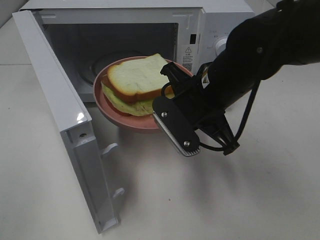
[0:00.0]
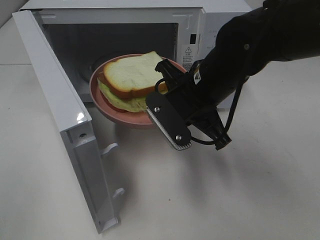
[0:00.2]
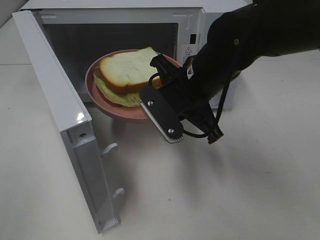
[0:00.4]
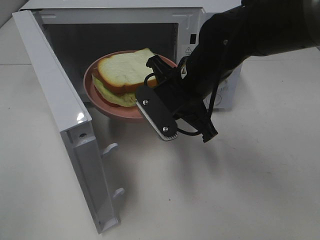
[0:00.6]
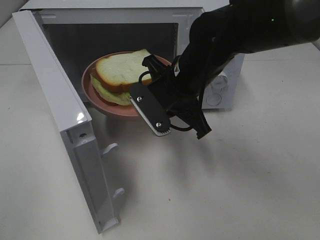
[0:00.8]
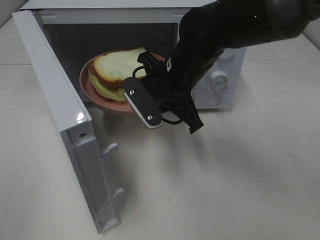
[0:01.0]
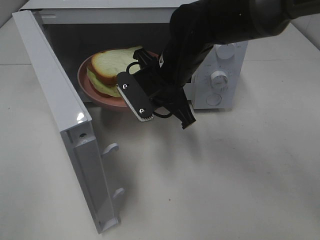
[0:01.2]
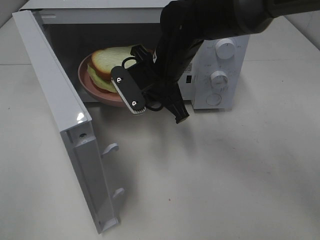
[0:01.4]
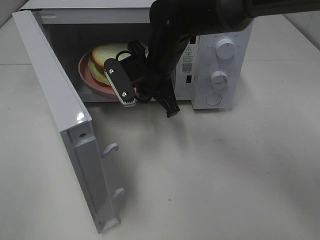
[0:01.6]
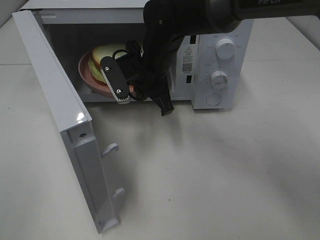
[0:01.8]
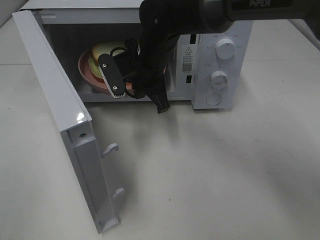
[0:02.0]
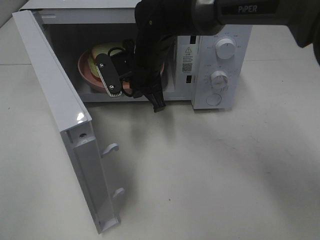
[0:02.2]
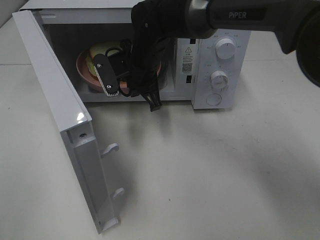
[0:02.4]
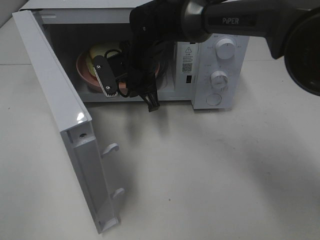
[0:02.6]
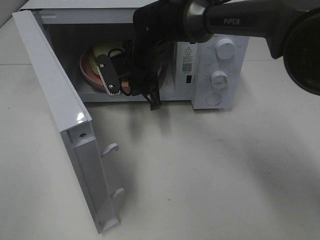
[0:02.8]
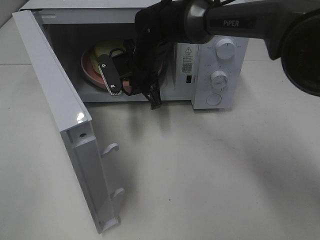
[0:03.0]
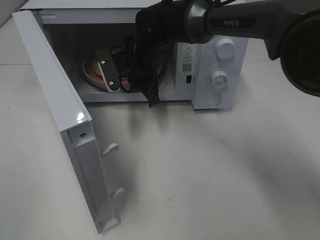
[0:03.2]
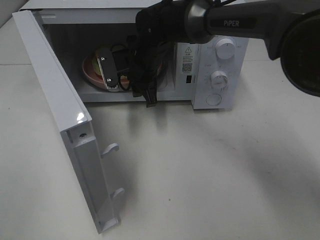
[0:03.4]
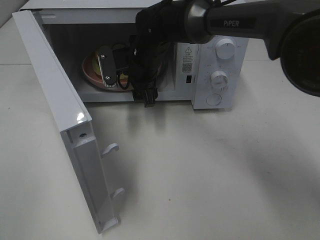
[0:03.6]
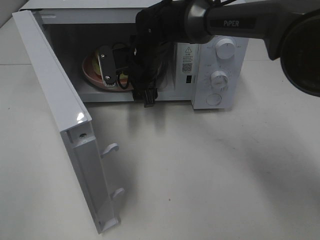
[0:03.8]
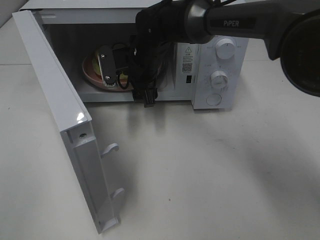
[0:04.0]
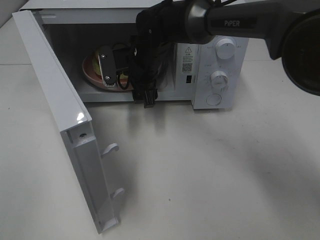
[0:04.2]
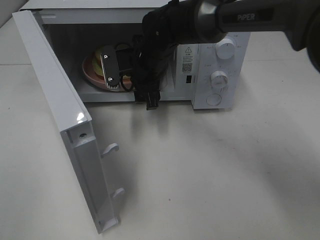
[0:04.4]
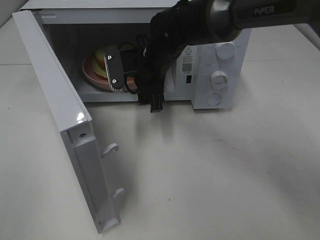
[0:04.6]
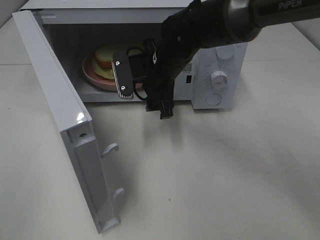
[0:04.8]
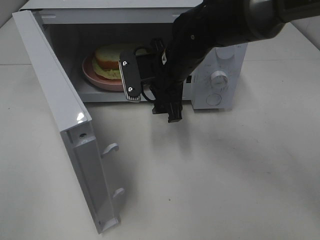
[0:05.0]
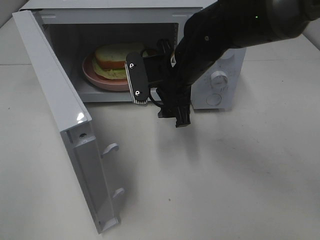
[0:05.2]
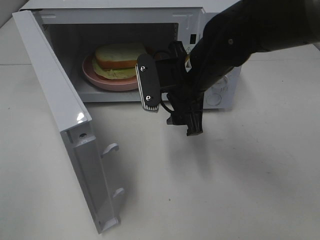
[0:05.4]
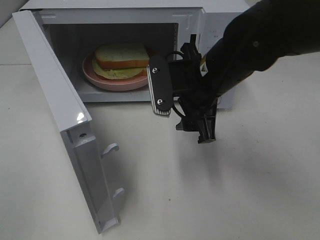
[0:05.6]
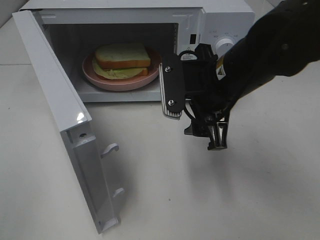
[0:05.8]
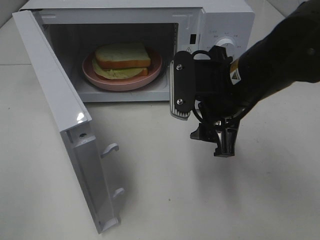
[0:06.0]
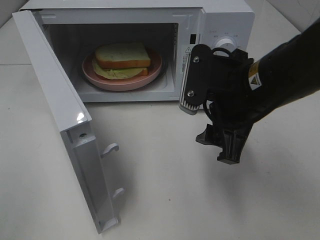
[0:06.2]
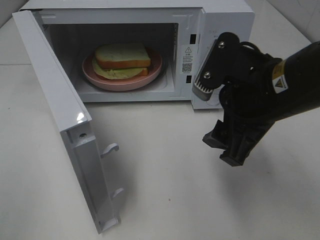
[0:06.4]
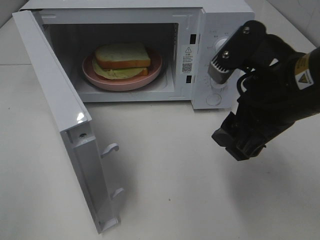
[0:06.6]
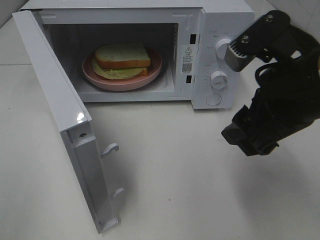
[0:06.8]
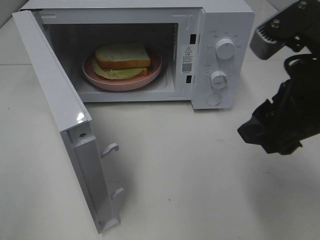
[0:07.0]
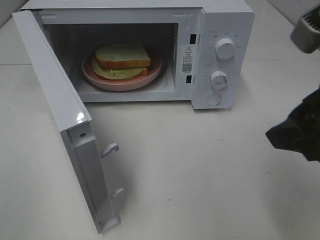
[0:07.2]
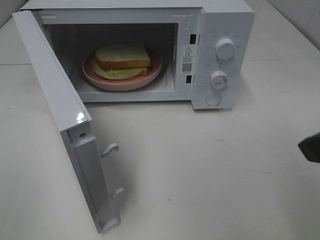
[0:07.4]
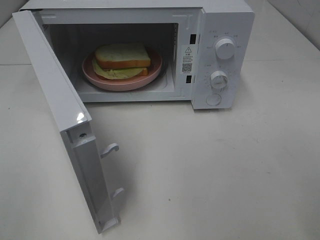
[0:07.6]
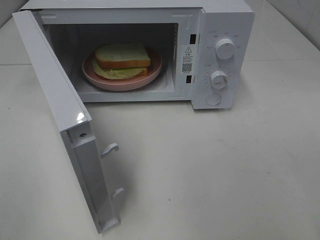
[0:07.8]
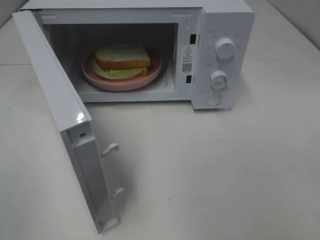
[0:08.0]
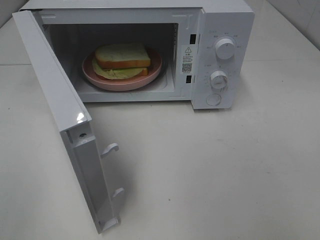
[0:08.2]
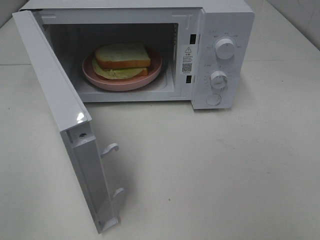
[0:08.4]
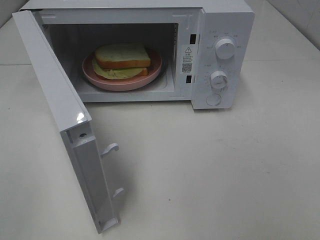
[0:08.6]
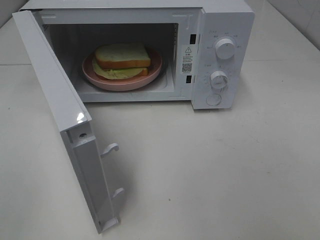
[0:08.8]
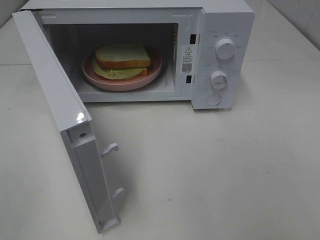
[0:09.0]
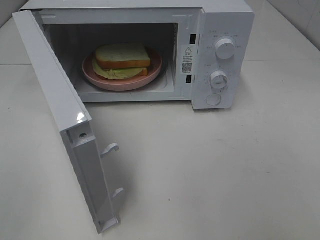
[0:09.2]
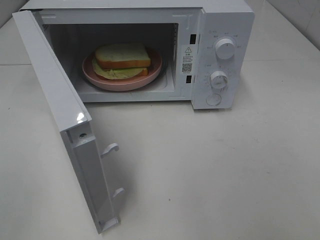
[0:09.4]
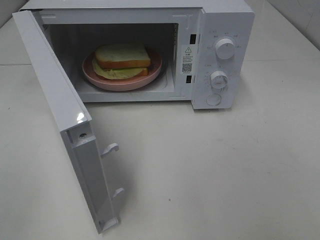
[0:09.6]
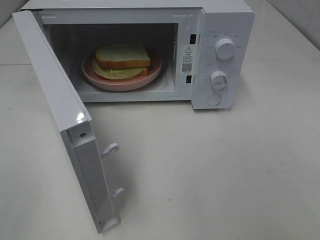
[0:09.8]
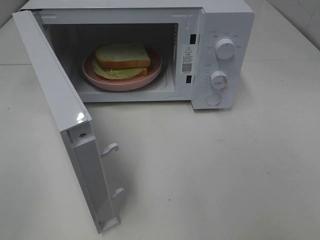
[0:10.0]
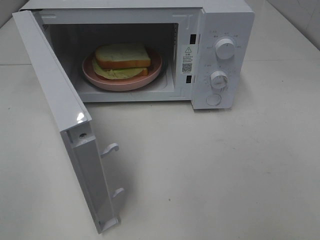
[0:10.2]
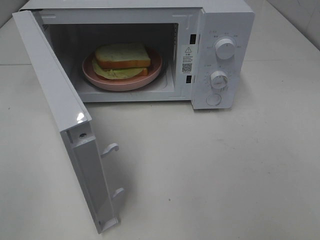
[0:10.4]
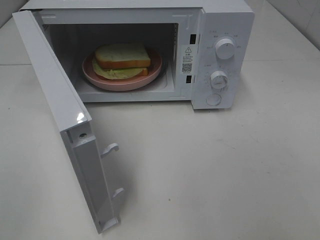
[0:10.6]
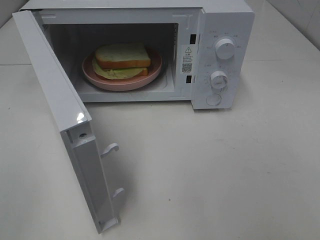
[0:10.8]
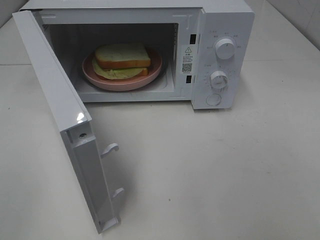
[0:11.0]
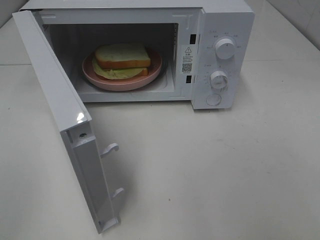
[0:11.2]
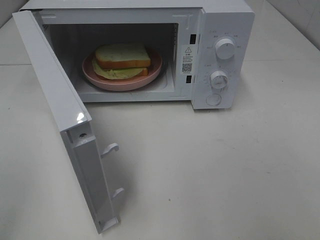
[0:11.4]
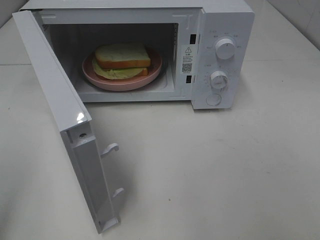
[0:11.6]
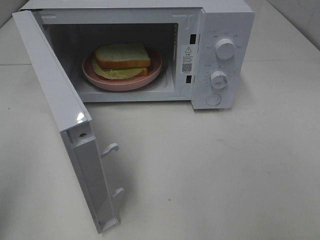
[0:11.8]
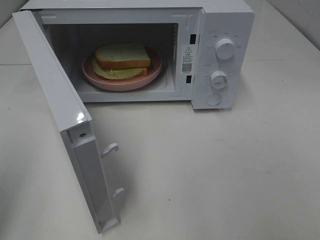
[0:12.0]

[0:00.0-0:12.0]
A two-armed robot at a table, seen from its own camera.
Task of the whole recording: Heat Sandwich.
Step, 0:00.0 to 0:04.4: Right hand: place the plate in the microwave.
0:00.0 to 0:01.6: The right gripper shifts roughly 10 cm forward and to the left.
0:01.6 to 0:03.0: The right gripper goes about 5 cm forward.
0:03.0 to 0:04.4: The right gripper opens.
0:04.4 to 0:06.0: The right gripper shifts about 20 cm backward and to the right.
0:06.0 to 0:07.6: The right gripper goes approximately 20 cm backward, to the right and upward.

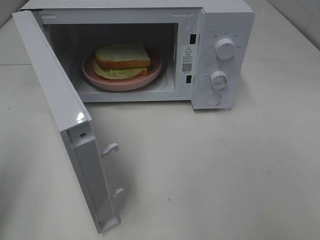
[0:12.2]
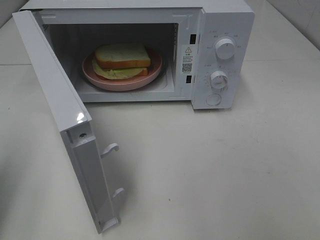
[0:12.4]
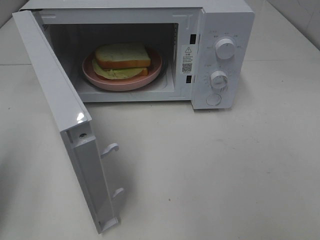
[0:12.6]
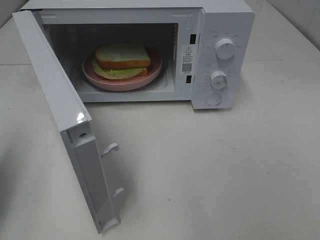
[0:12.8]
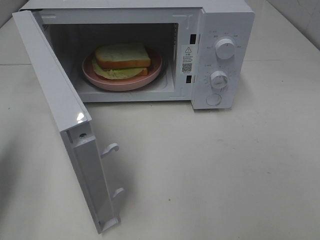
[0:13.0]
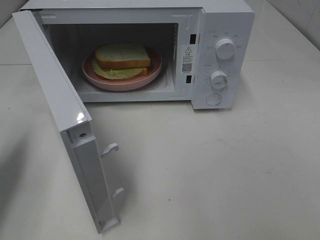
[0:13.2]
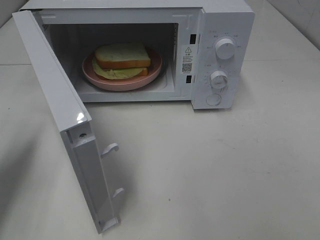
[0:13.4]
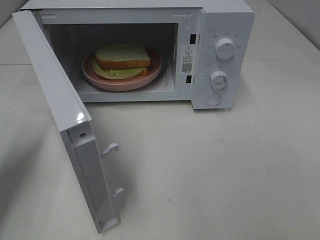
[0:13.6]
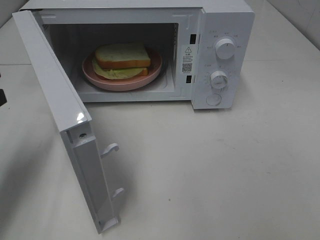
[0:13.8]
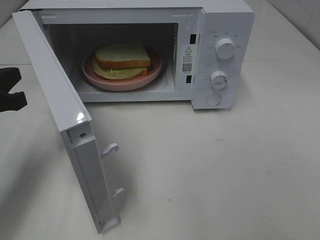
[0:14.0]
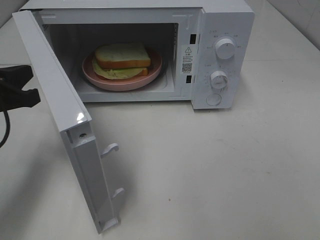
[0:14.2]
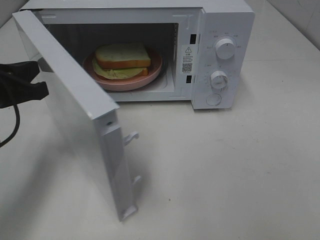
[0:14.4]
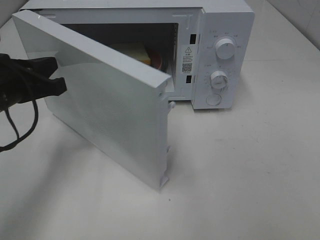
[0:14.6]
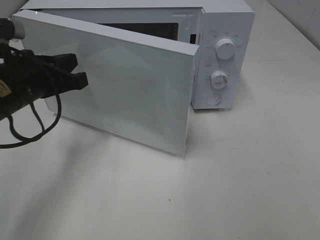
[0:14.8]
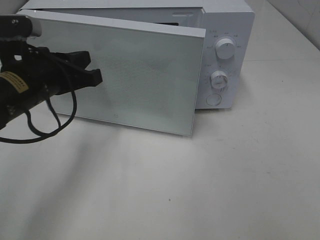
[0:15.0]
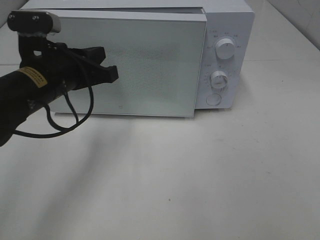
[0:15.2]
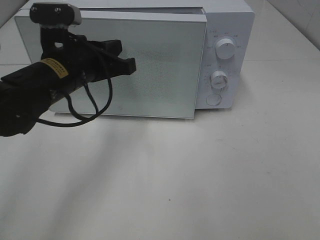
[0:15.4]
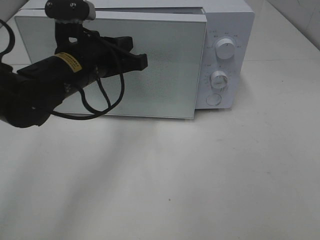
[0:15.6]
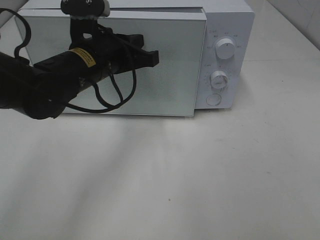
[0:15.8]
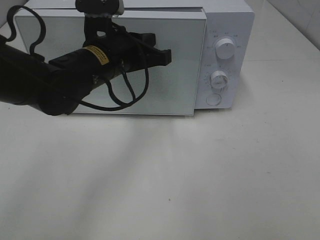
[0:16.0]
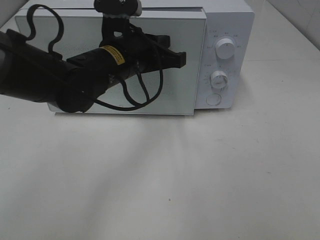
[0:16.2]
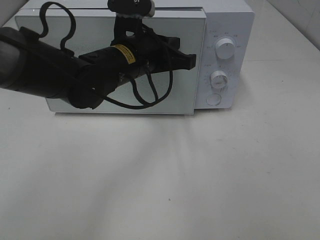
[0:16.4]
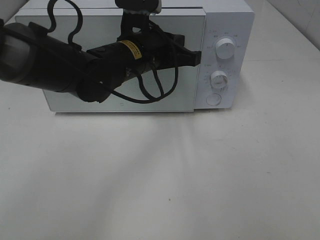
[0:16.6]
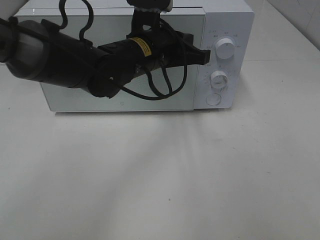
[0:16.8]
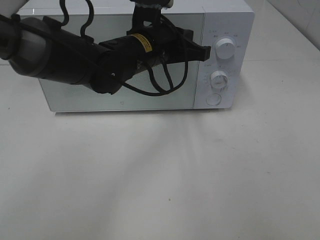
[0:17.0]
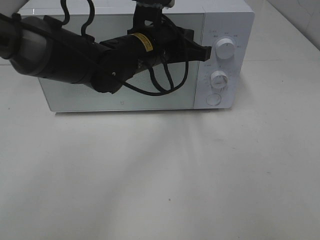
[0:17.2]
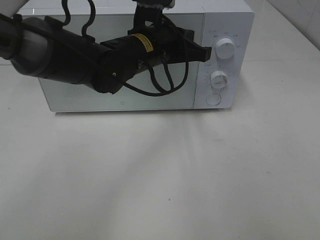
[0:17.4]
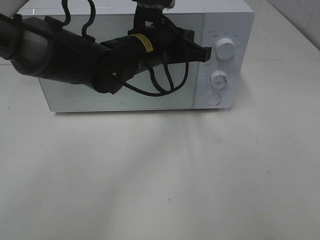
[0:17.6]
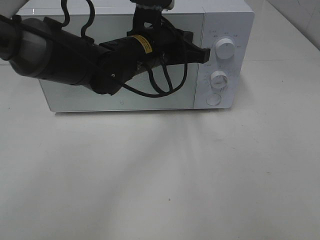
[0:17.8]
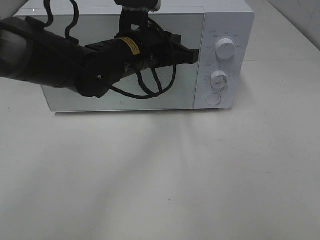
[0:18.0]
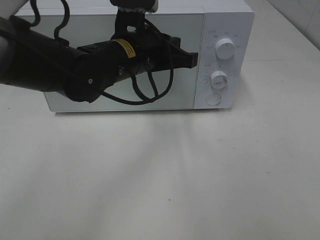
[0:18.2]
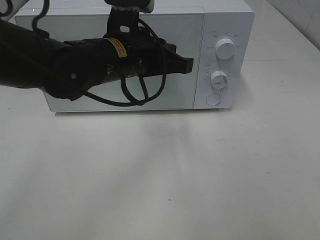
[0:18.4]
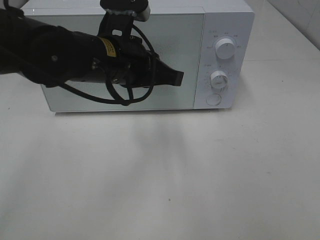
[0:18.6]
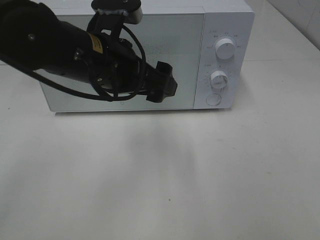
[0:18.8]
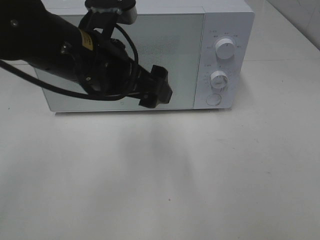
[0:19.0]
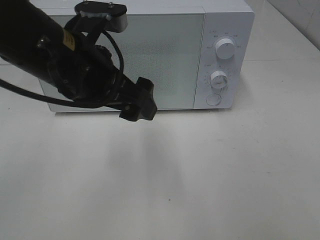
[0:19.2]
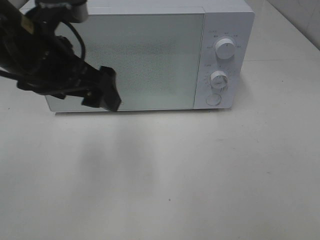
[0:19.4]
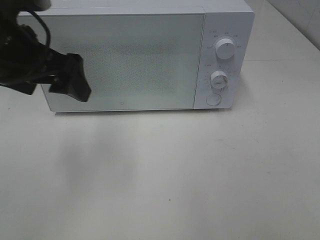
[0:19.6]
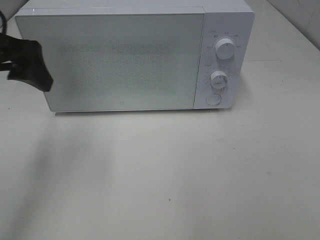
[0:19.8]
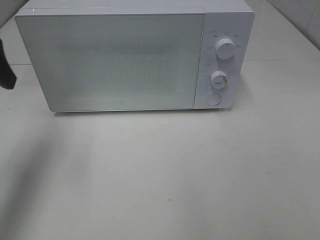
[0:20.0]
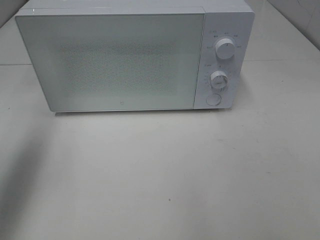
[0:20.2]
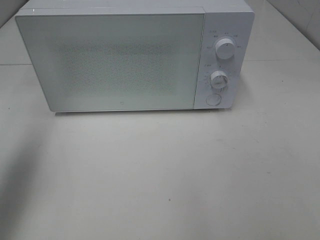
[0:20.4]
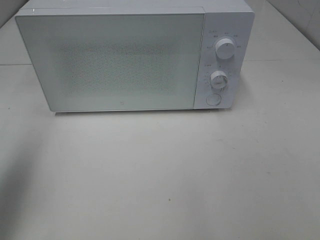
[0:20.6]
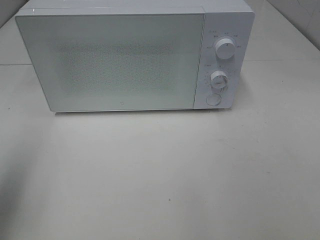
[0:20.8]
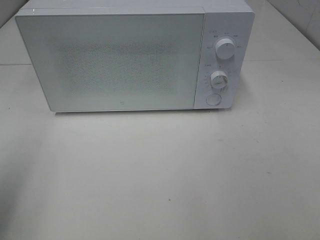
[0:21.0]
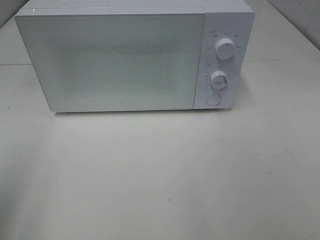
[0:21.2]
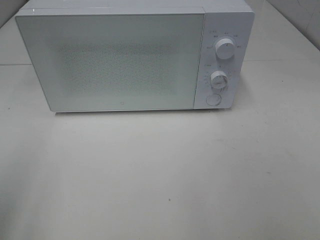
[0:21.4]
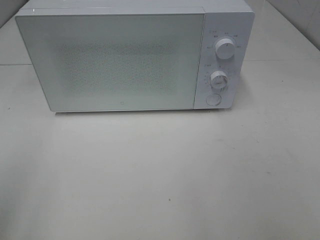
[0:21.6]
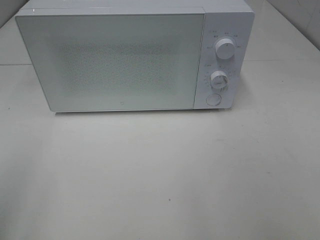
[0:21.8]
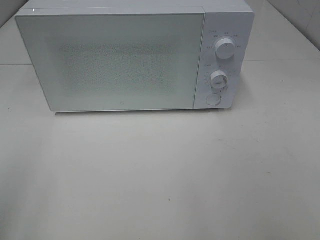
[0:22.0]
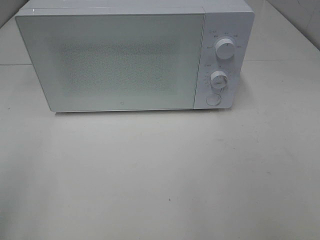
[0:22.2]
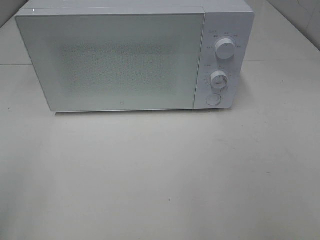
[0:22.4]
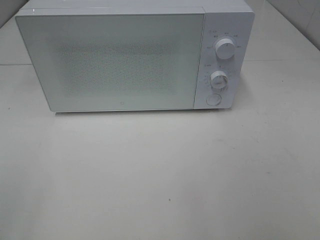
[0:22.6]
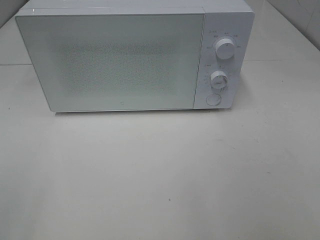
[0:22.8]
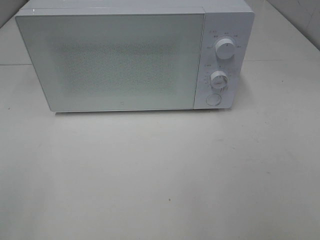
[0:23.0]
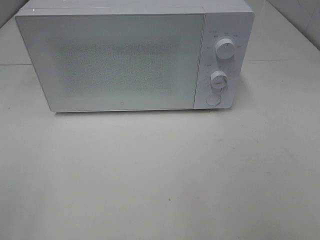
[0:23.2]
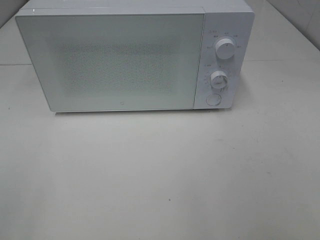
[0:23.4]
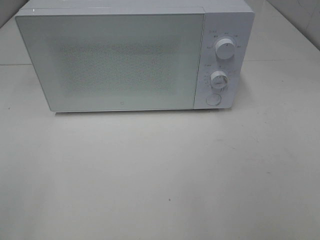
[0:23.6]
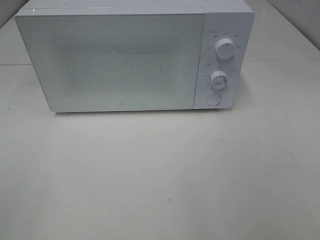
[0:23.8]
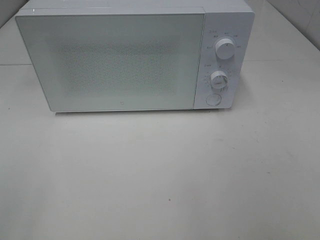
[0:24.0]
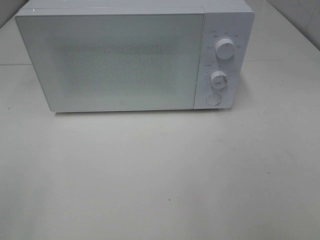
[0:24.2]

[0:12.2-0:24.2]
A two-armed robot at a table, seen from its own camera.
Task of the whole recording: Heat Sandwich.
Step, 0:12.2 to 0:18.6: Left hand: close the microwave door.
0:12.2 to 0:13.8: The left gripper travels forward and downward by some 15 cm.
0:13.8 to 0:15.2: The left gripper heads to the right, covering some 15 cm.
0:15.2 to 0:16.6: The left gripper is displaced to the right and forward by about 15 cm.
0:16.6 to 0:18.2: The grippers stay close to where they were, moving slightly.
0:18.2 to 0:19.8: The left gripper shifts some 20 cm to the left and upward, and opens.
0:19.8 to 0:21.2: The left gripper goes about 20 cm backward and to the left.
0:22.6 to 0:24.2: Neither gripper changes place.
